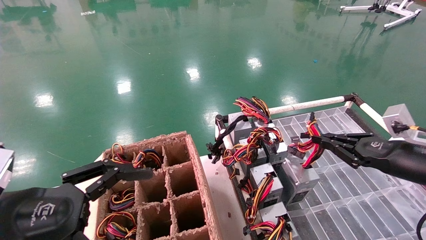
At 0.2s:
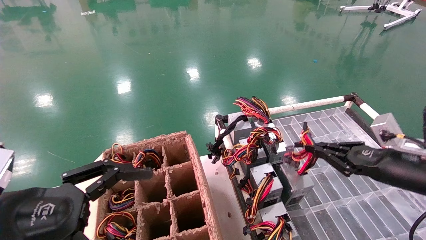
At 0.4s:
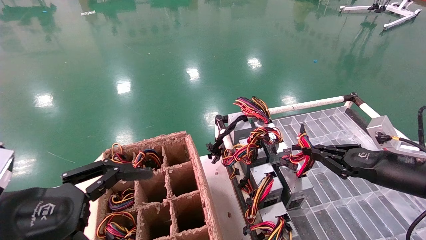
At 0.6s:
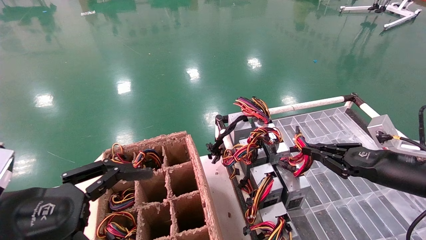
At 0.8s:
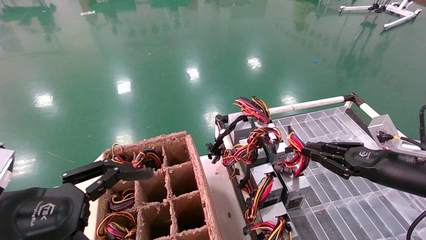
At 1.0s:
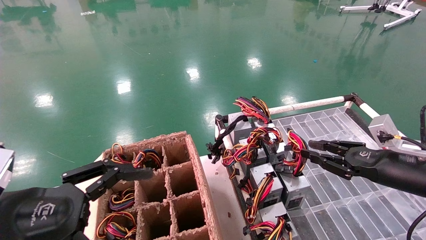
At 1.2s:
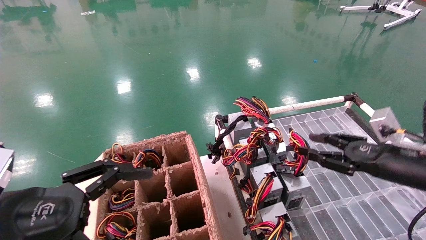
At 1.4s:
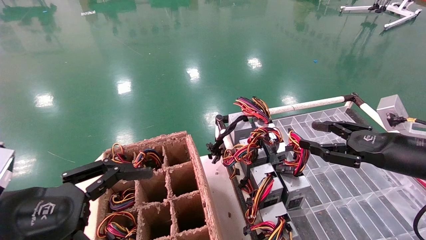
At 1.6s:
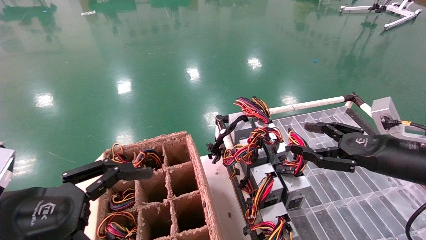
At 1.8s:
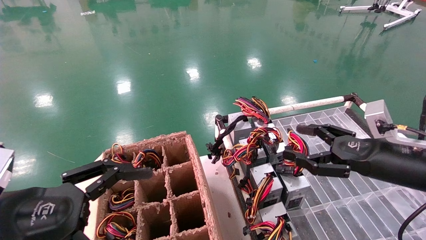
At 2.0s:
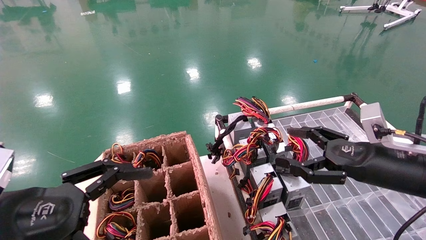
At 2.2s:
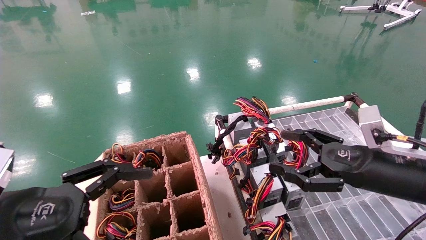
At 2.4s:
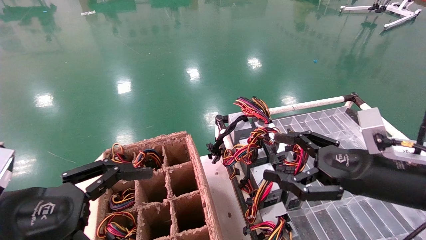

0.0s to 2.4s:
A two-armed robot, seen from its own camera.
0.0s to 1.2s: The grippers stay close to where they were, moving slightly.
1.2s to 2.4s: The right gripper heads to the left, covering roughly 10 cm, and opens.
